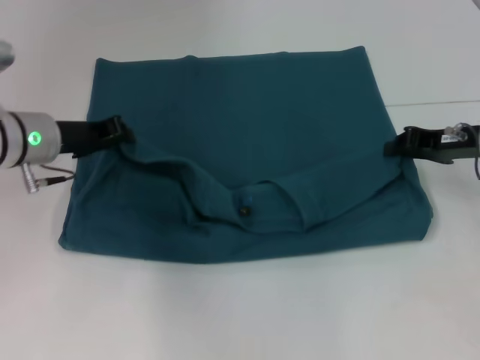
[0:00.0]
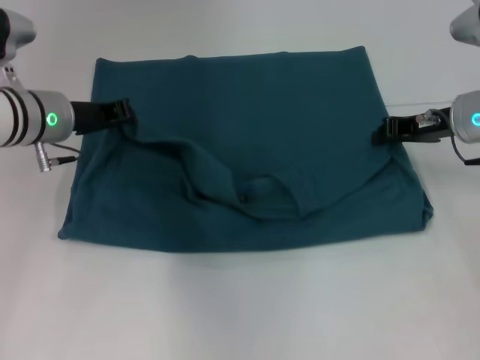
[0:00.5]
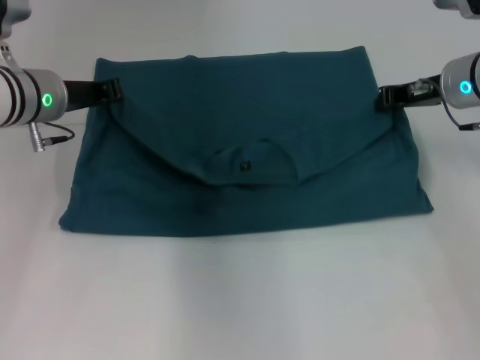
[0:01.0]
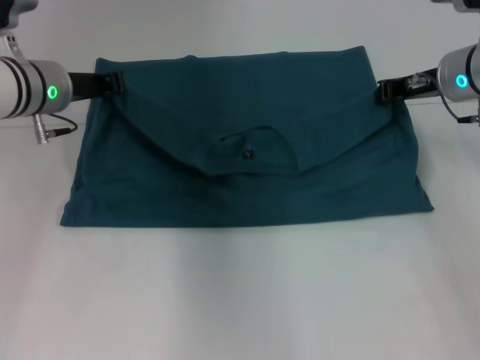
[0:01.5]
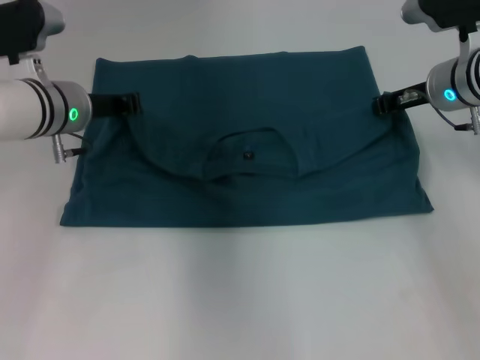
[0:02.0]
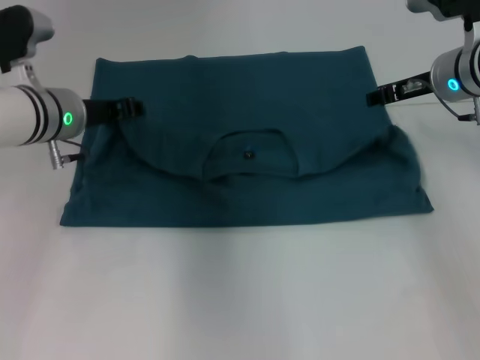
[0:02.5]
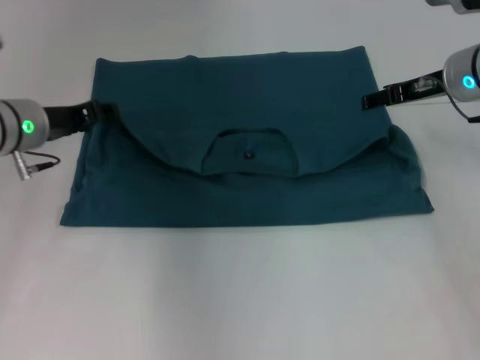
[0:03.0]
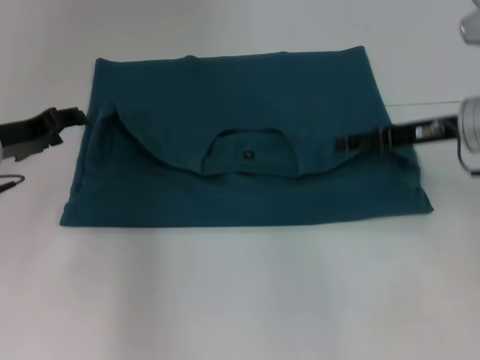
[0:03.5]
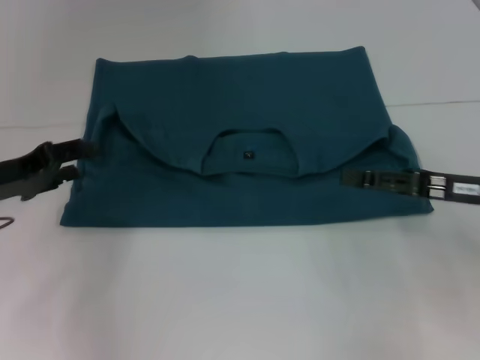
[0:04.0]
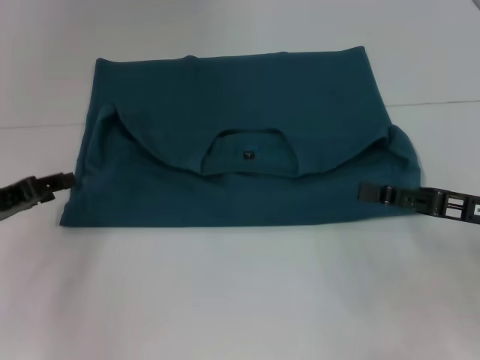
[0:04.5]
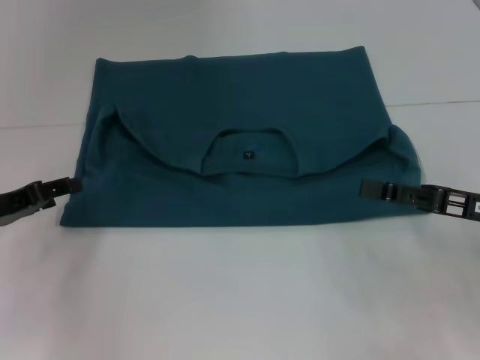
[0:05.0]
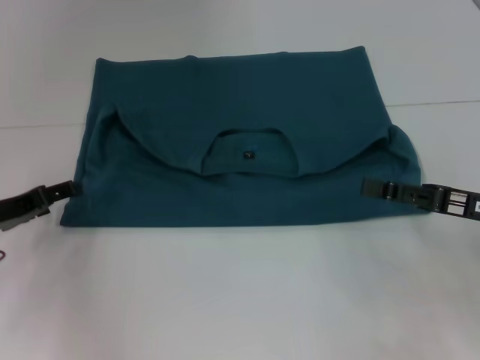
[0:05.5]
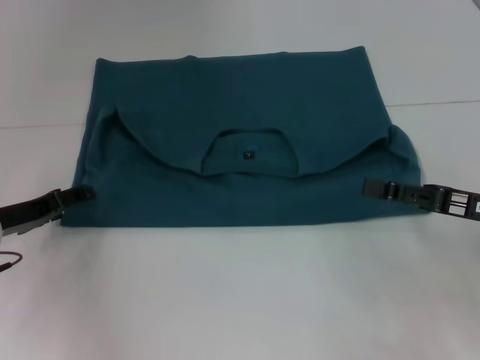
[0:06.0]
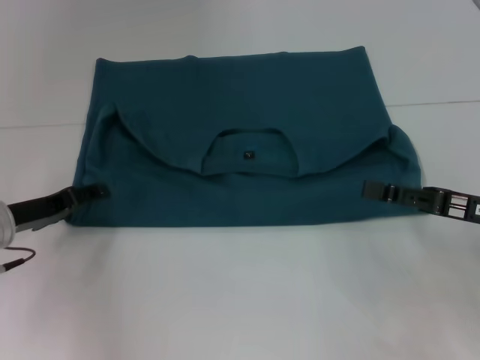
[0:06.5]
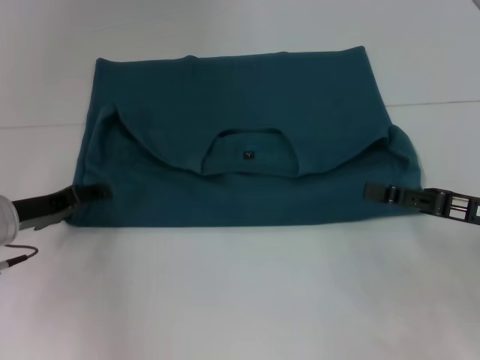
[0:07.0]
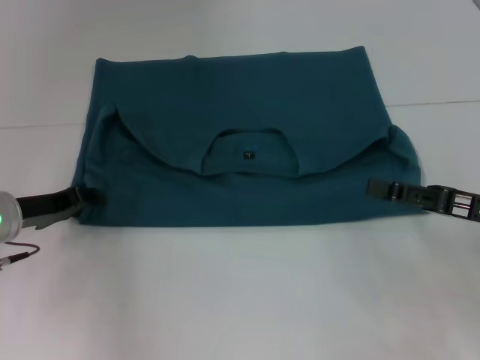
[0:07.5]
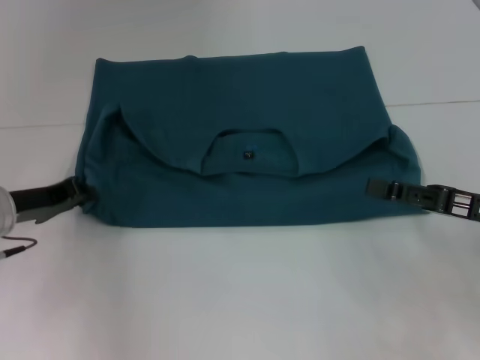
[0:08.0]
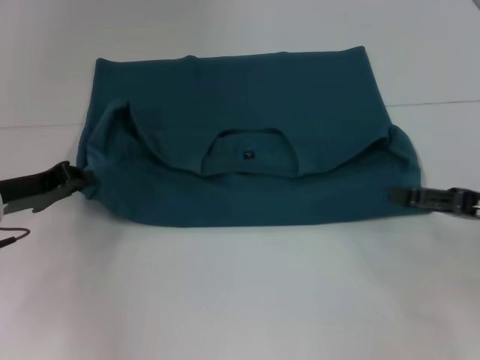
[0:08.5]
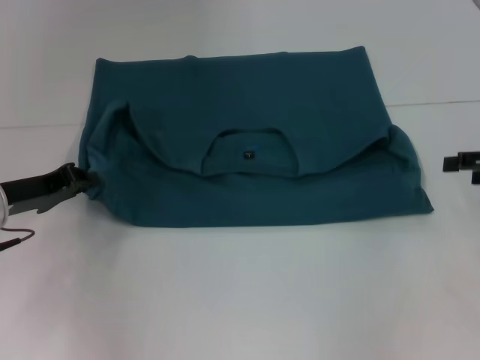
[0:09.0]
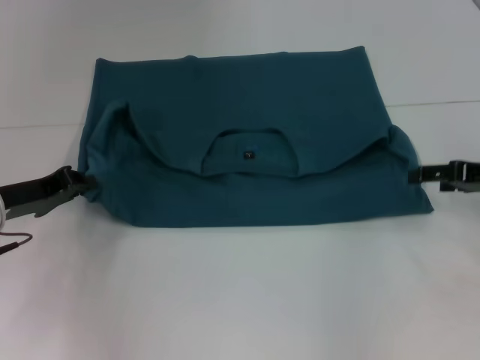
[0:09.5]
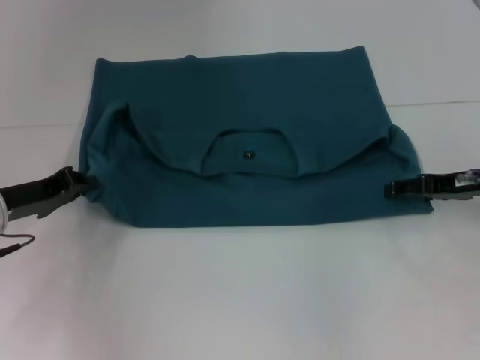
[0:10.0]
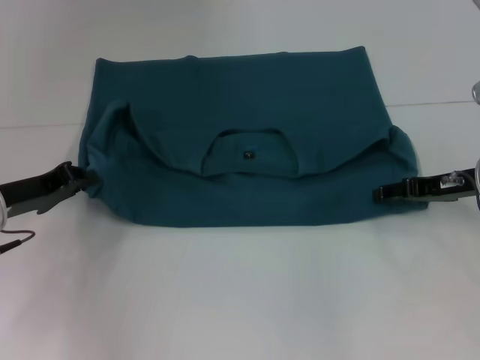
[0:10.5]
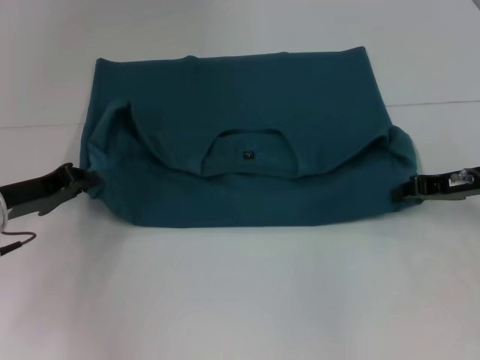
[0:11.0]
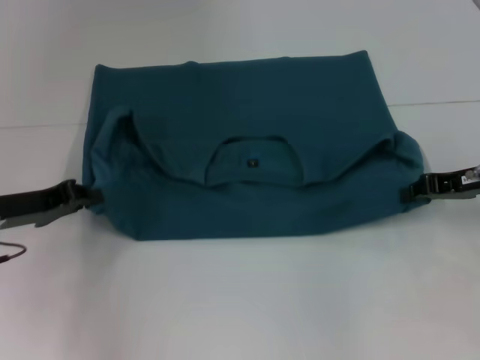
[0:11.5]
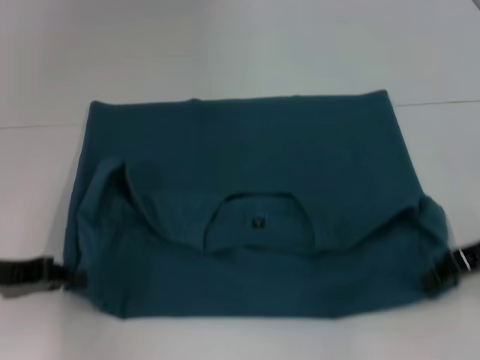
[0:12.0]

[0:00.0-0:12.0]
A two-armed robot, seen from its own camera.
Step, 0:00.0 to 0:03.0: Fold the clothes to the left.
Step, 0:00.0 to 0:03.0: Fold the clothes to the right.
0:00.0 to 0:02.0: The left gripper shifts by roughly 5 cm, while the right gripper travels forward and to the left by roughly 10 cm.
0:02.0 to 0:04.0: The right gripper moves backward, approximately 15 cm, and opens; the left gripper is displaced to the left and backward by approximately 15 cm, and opens its fingers.
0:04.0 to 0:06.0: The left gripper moves downward, approximately 5 cm.
0:06.0 to 0:08.0: The left gripper closes its fingers.
0:08.0 to 0:10.0: The right gripper heads forward, covering some 10 cm.
0:10.0 to 0:12.0: The right gripper moves about 5 cm, and closes its fingers, while the left gripper goes roughly 5 cm backward.

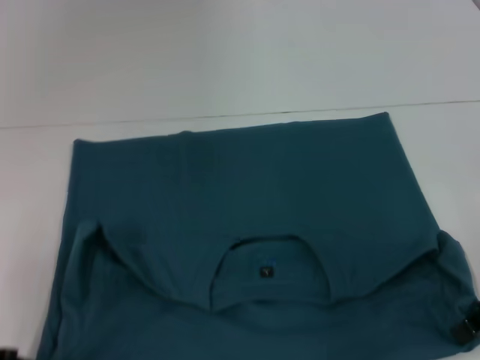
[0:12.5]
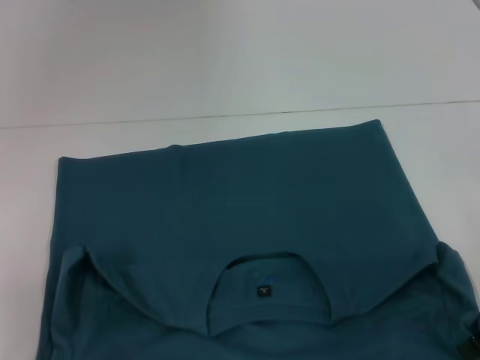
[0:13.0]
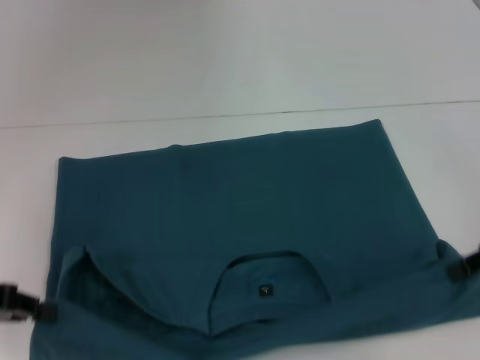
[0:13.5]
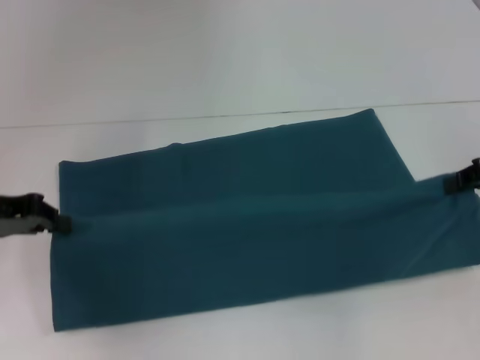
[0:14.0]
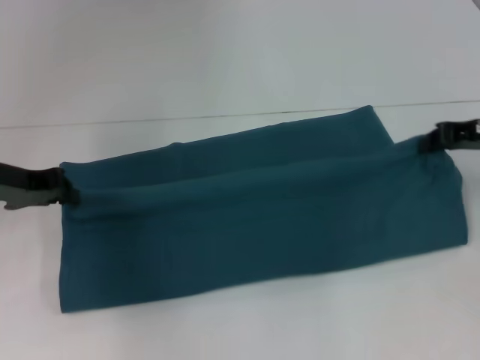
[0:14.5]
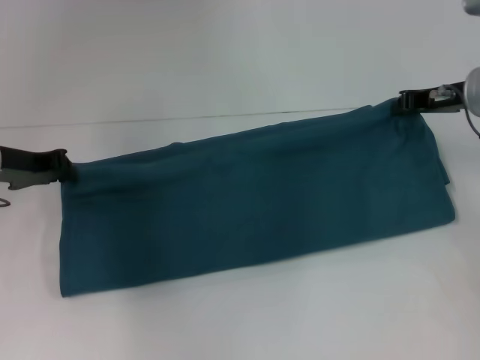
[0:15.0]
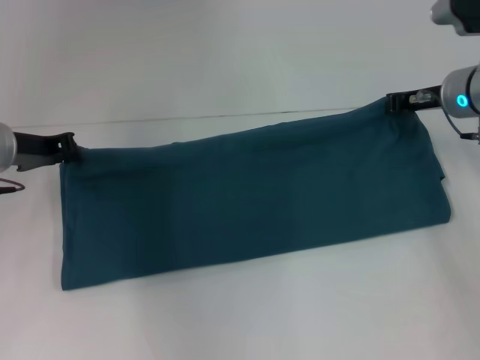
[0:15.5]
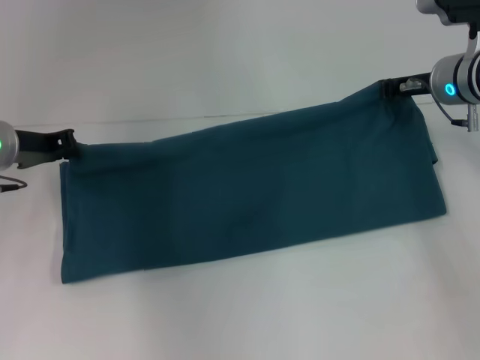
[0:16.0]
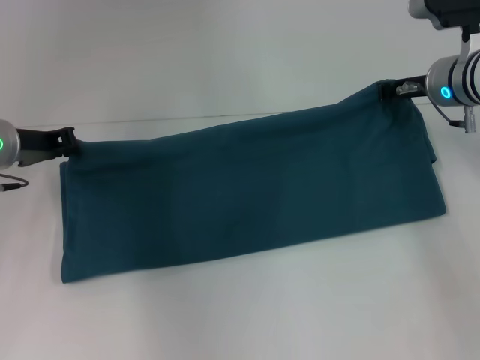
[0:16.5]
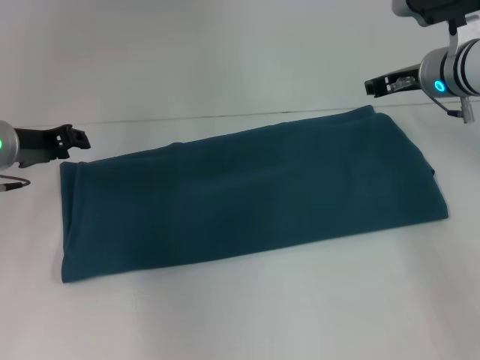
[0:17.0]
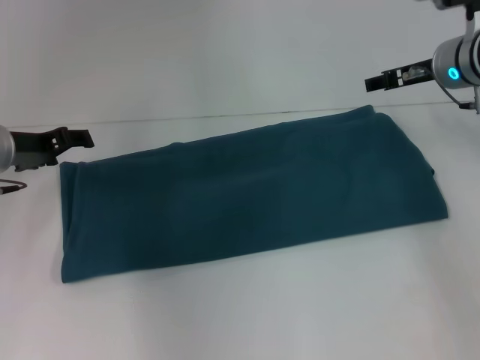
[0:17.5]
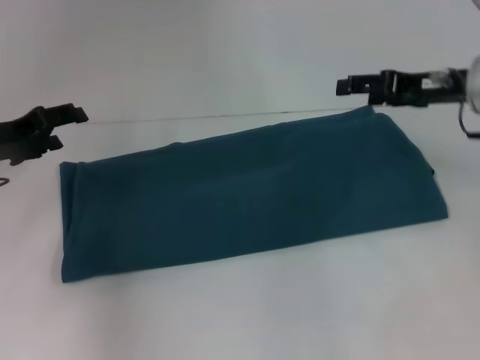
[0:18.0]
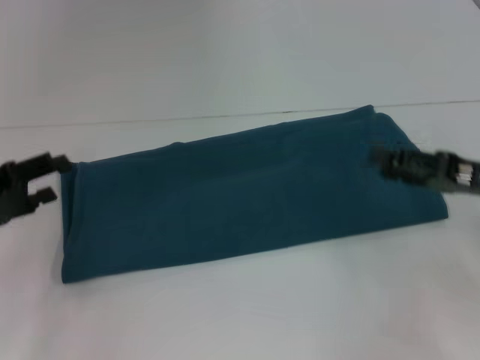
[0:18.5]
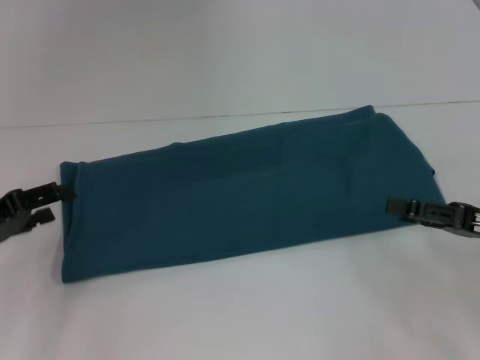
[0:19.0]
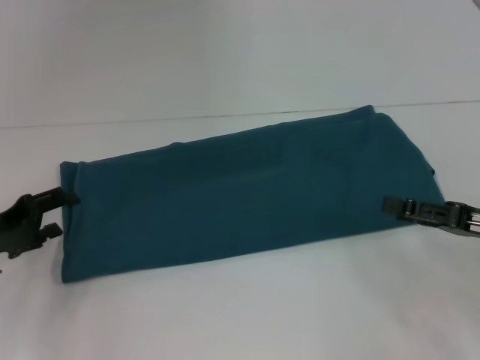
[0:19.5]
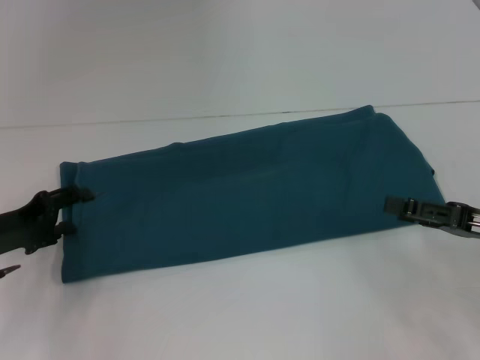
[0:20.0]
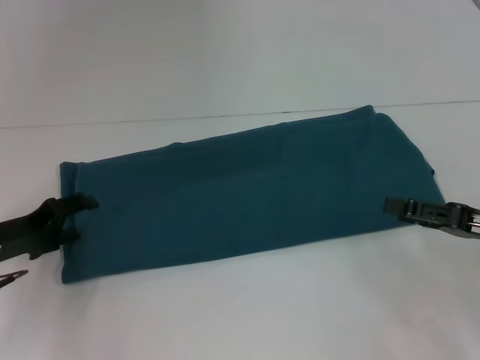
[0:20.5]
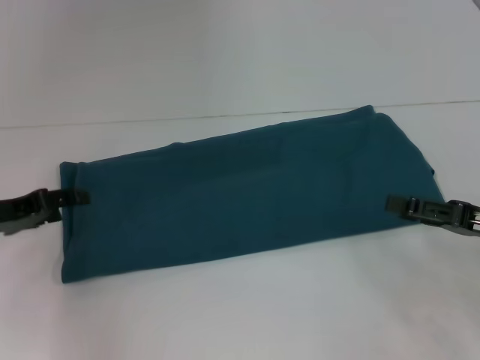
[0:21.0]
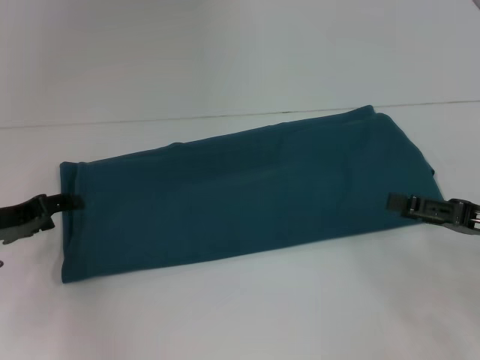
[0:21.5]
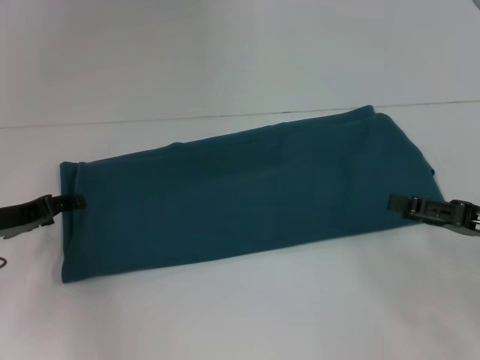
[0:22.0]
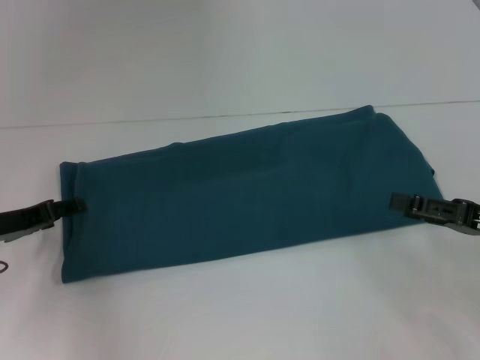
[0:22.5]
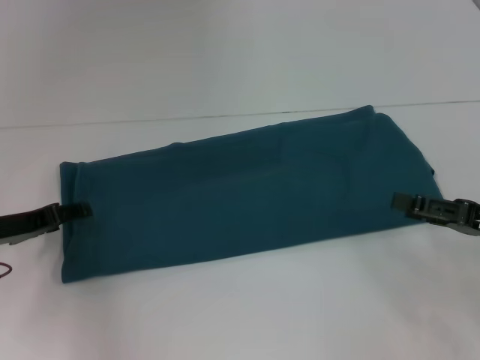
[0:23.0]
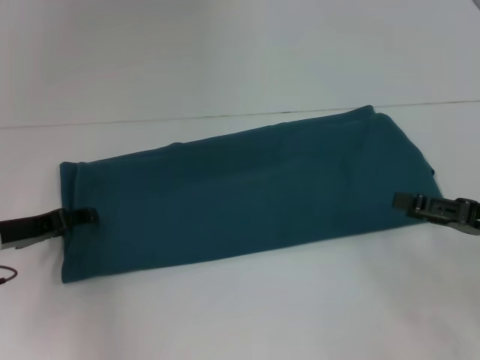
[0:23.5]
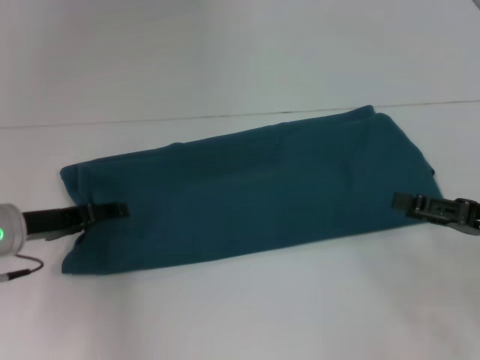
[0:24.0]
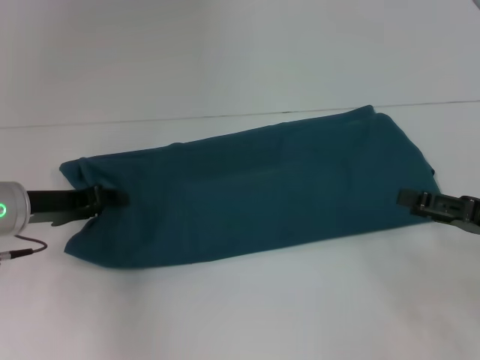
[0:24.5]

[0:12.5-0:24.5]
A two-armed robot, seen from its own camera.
Step, 0:12.5 to 0:17.0: Fold the clothes to the right.
0:12.5 to 0:14.5: Both grippers move forward, some 10 cm.
0:14.5 to 0:16.5: The right gripper shifts roughly 10 cm to the left and forward.
0:16.5 to 0:18.5: The left gripper moves backward and to the left, roughly 15 cm, and opens its fingers. Meanwhile the right gripper travels backward and to the right by about 15 cm, and opens up.
0:18.5 to 0:20.5: The left gripper moves downward, approximately 5 cm.
0:22.5 to 0:24.5: The left gripper ends up some 5 cm from where it was.

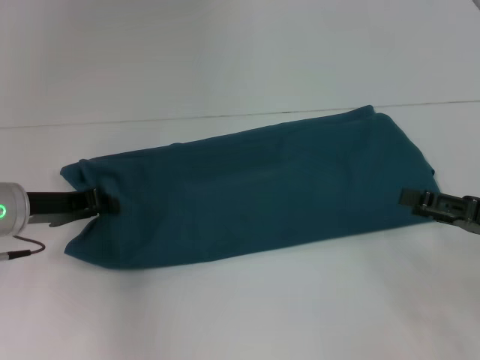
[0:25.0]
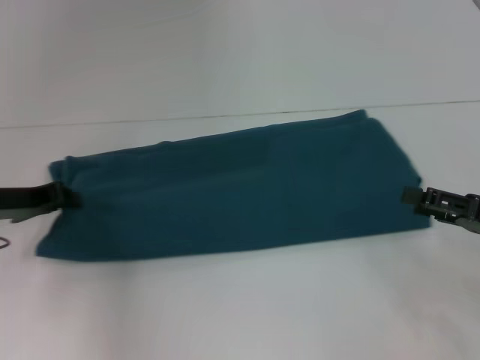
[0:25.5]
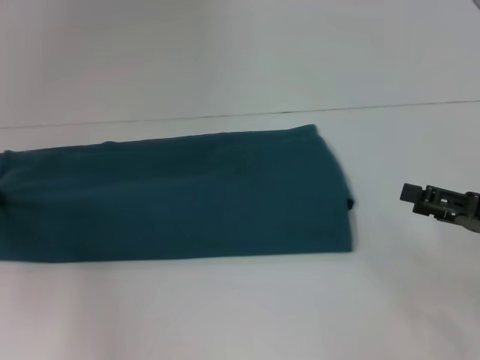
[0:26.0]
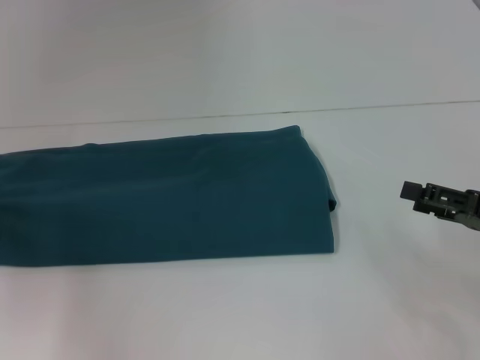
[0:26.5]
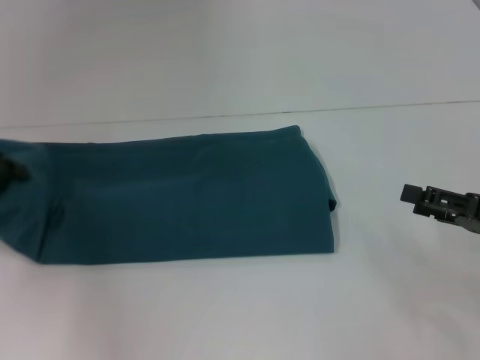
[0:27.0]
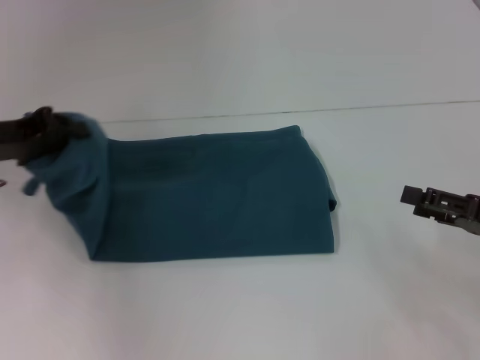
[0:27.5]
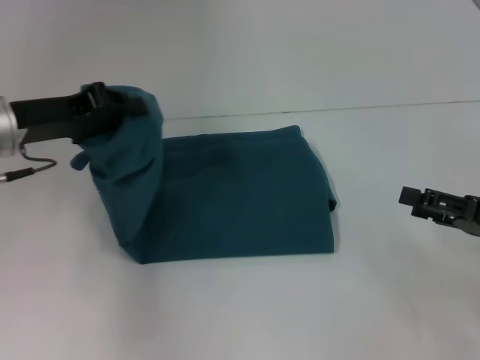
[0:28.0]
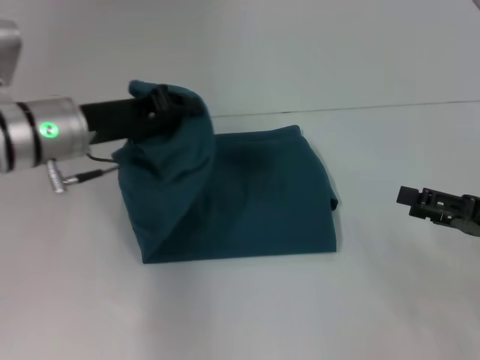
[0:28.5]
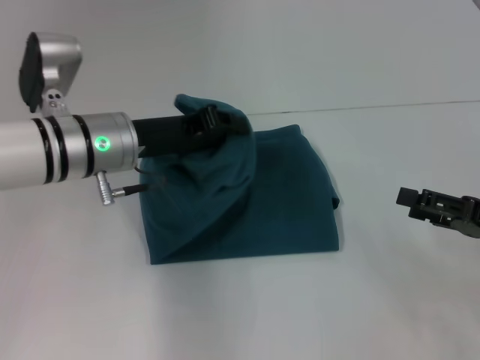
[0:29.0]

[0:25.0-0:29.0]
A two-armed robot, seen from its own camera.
0:25.0 to 0:27.0: The left gripper heads to the left, covering roughly 10 cm.
0:27.0 to 0:29.0: The left gripper travels to the right by approximately 20 cm.
